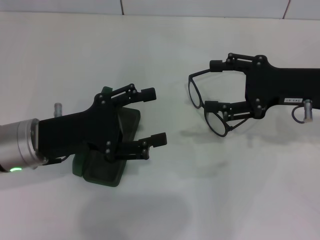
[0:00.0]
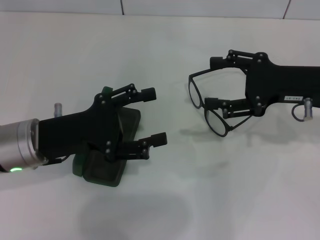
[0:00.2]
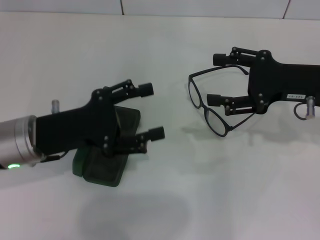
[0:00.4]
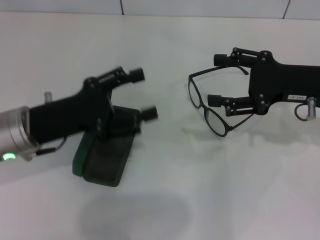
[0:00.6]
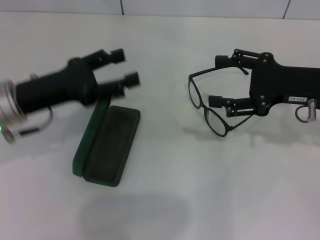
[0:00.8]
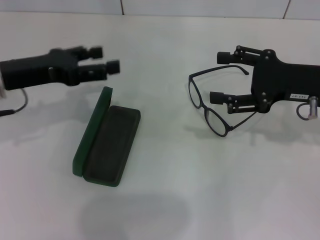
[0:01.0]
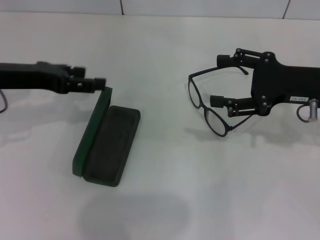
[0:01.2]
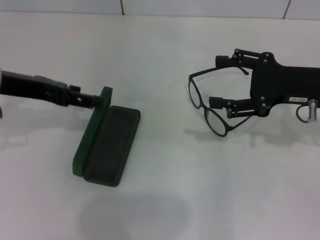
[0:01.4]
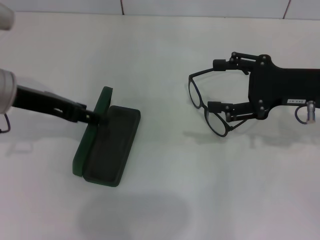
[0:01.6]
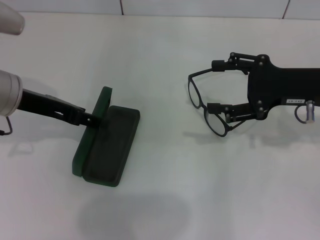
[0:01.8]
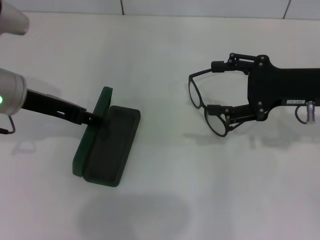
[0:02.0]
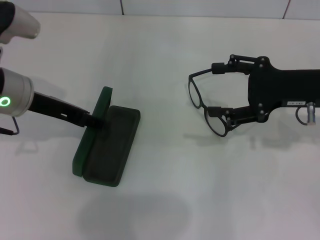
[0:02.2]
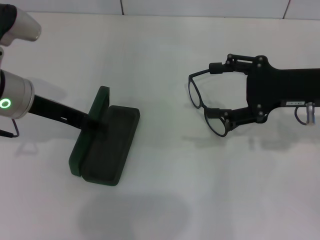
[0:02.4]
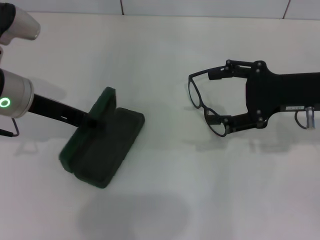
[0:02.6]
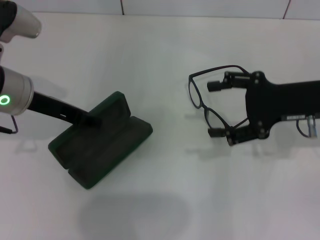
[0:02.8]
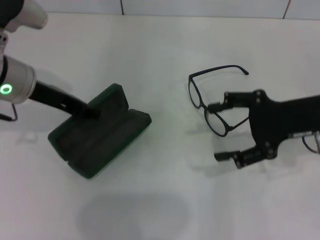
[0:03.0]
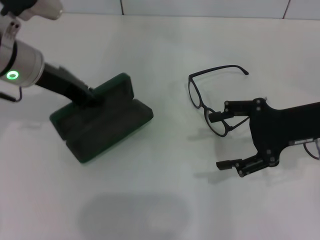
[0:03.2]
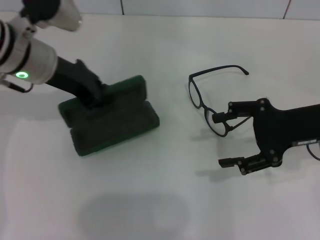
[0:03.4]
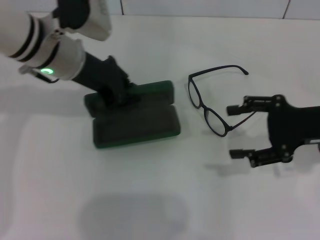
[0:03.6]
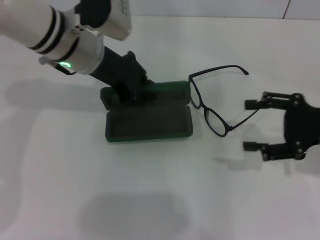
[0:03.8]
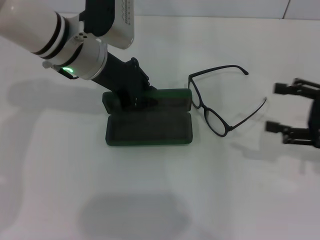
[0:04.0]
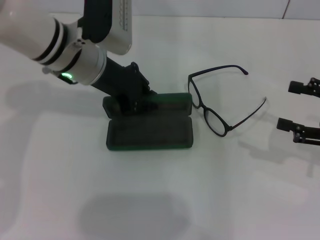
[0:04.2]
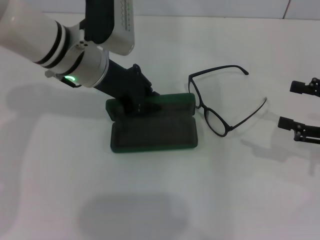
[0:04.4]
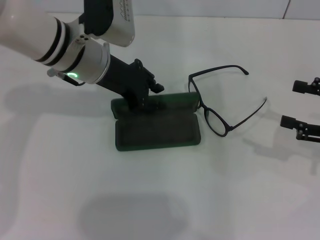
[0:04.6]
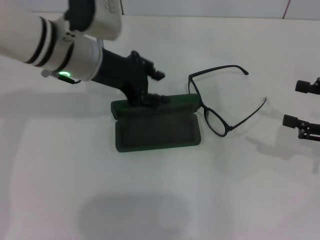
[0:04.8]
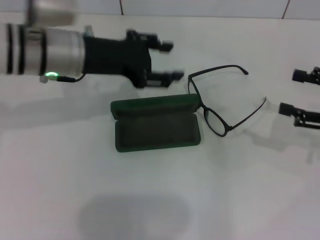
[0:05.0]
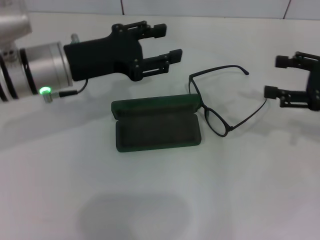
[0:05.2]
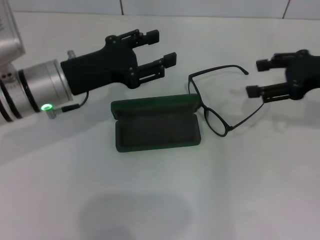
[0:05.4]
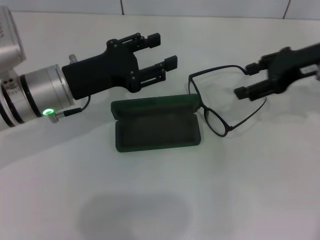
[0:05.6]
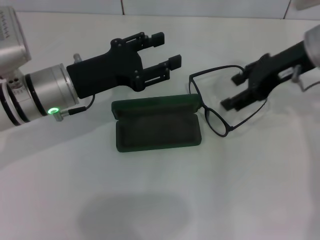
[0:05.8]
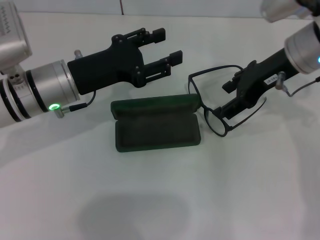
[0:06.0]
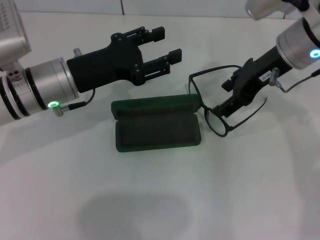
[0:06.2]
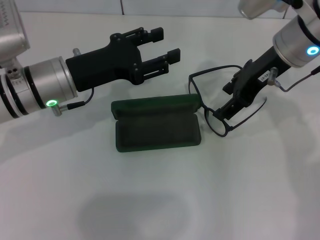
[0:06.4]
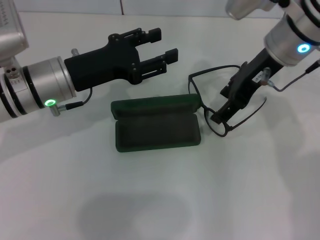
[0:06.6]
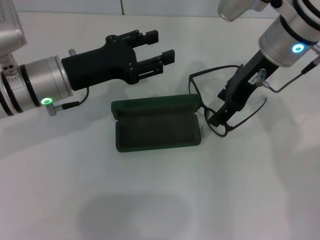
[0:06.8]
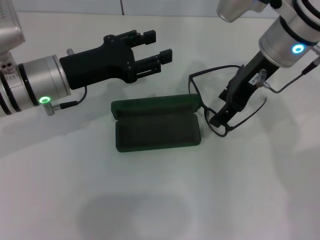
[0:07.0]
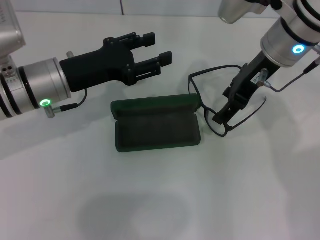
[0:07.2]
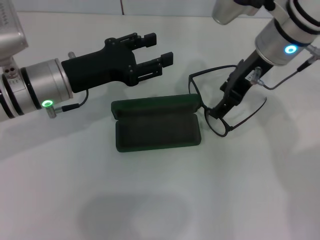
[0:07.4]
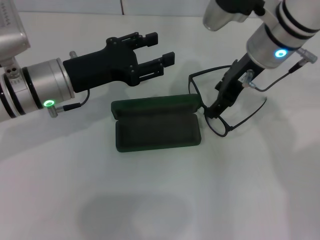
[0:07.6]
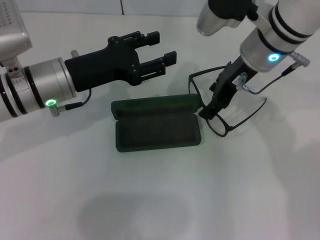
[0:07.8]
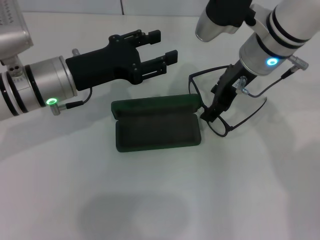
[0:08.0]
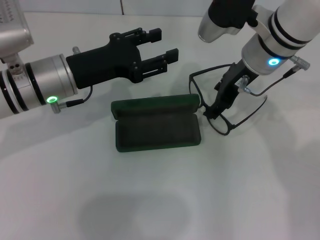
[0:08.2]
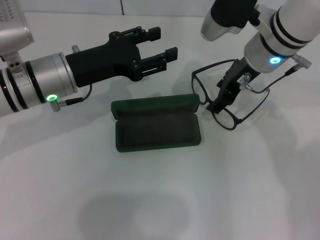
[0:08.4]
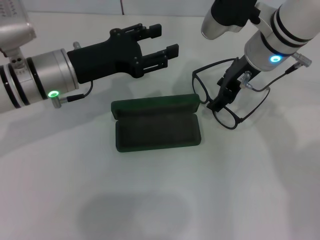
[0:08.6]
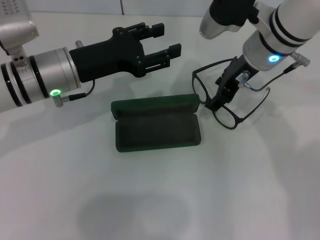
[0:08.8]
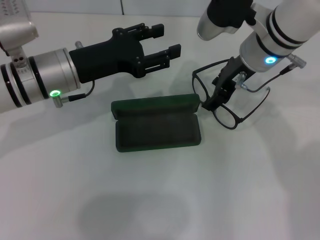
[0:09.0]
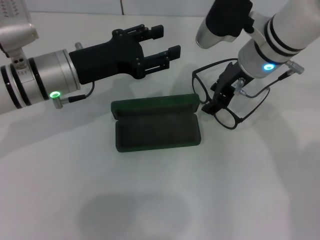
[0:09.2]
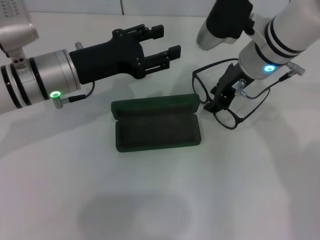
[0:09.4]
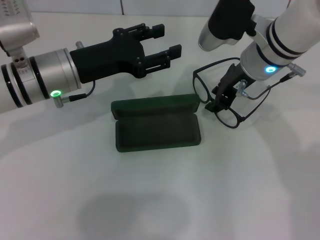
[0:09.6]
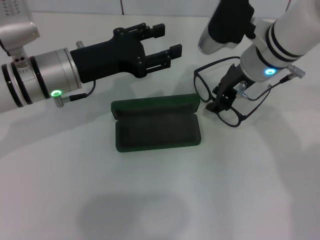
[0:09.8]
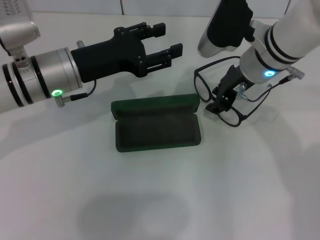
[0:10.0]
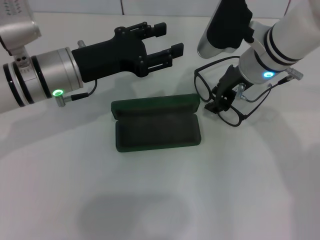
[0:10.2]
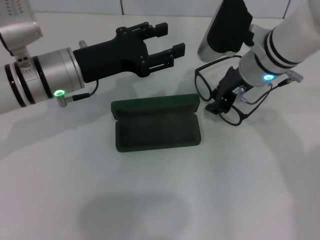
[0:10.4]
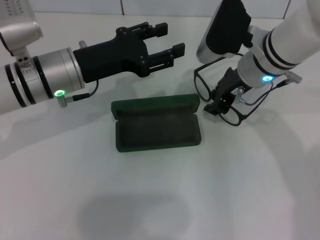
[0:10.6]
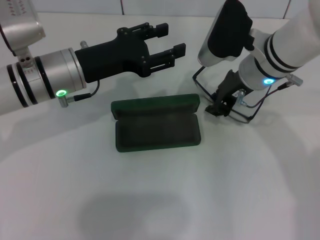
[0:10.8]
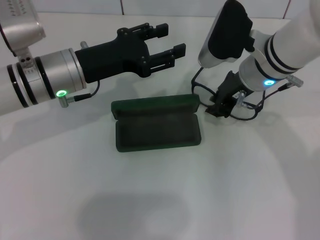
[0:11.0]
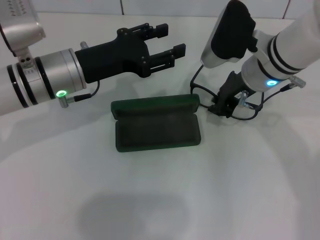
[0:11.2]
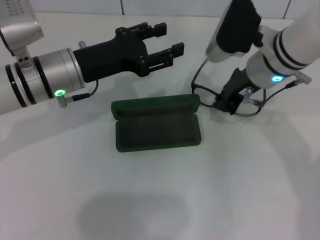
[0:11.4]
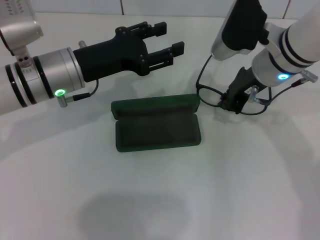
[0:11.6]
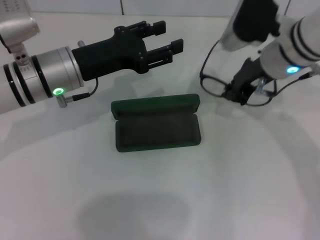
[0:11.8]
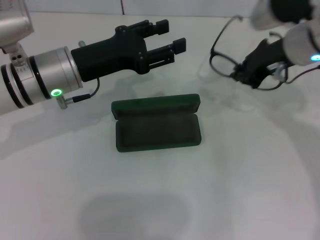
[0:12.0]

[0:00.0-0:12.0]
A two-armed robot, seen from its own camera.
Step, 0:00.0 to 0:02.6: Grab the glasses case with your left hand.
Step, 0:03.0 to 0:04.4: Place the glasses case in the center of the table with your left hand.
Step, 0:04.6 to 0:11.4: Grab the eyeglass frame with your right hand.
0:00.0 to 0:01.6: The left gripper moves upward and forward, roughly 10 cm.
0:01.6 to 0:03.0: The left gripper closes.
0:03.0 to 0:04.4: Both grippers move to the right, about 10 cm.
0:04.4 to 0:06.0: The right gripper shifts about 20 cm to the left, forward and upward. Meanwhile the left gripper moves backward, about 5 cm, and opens its fingers.
0:06.0 to 0:07.6: The right gripper travels to the left by approximately 5 cm.
0:07.6 to 0:09.0: There are only small adjustments of the grippers.
0:09.0 to 0:10.4: The right gripper closes its fingers.
0:10.4 to 0:12.0: The right gripper goes approximately 5 cm to the right, and closes up.

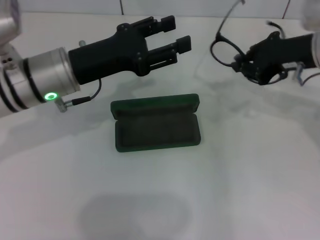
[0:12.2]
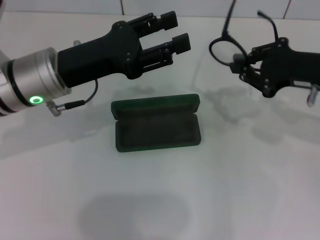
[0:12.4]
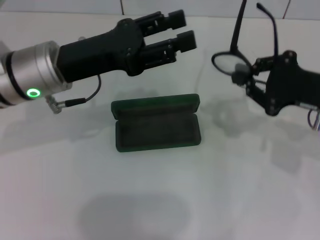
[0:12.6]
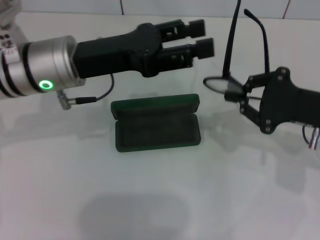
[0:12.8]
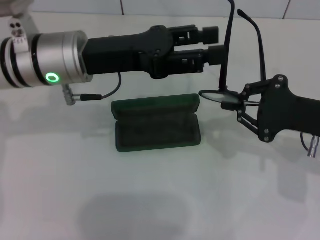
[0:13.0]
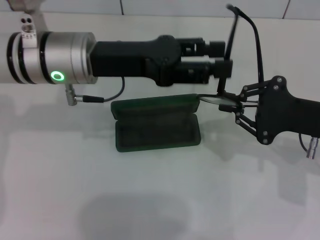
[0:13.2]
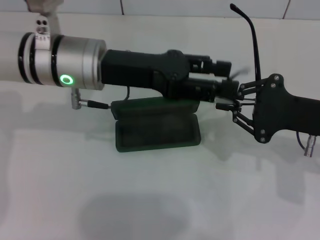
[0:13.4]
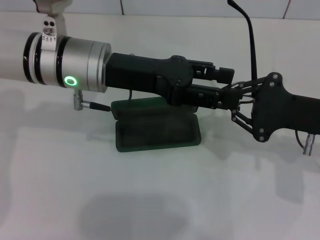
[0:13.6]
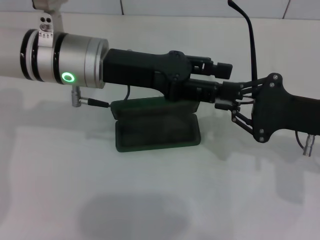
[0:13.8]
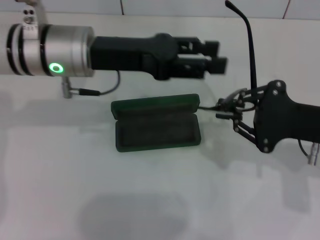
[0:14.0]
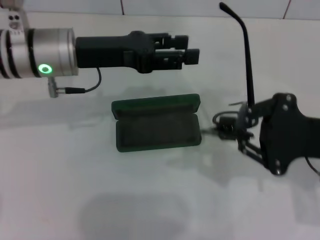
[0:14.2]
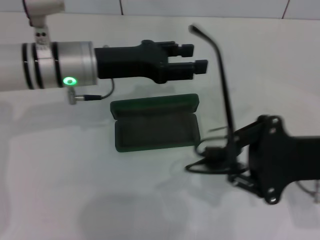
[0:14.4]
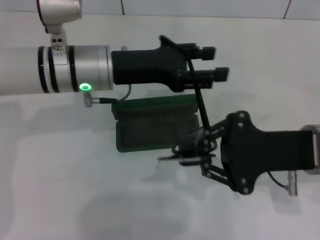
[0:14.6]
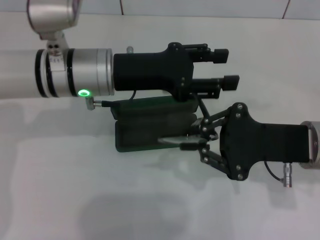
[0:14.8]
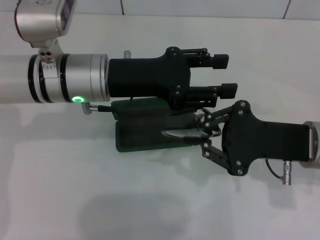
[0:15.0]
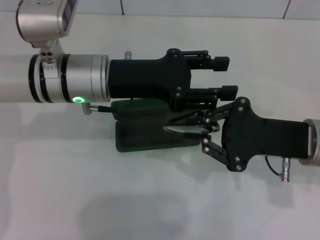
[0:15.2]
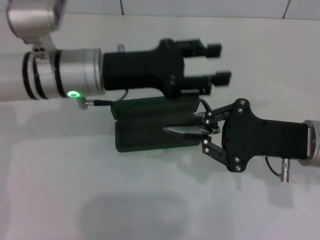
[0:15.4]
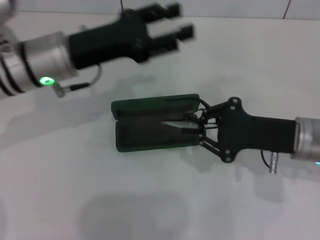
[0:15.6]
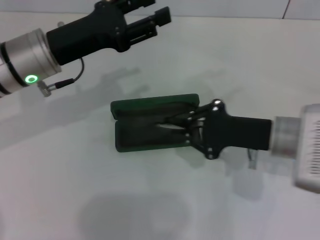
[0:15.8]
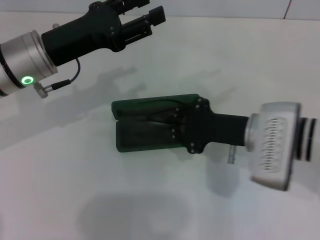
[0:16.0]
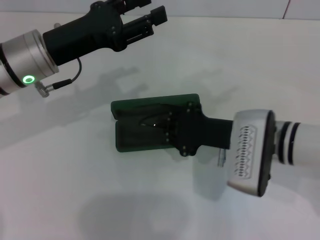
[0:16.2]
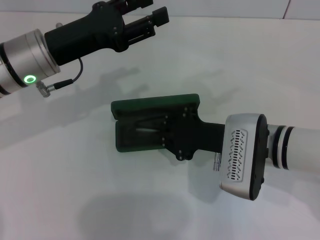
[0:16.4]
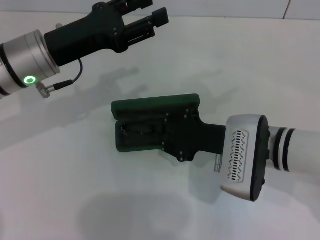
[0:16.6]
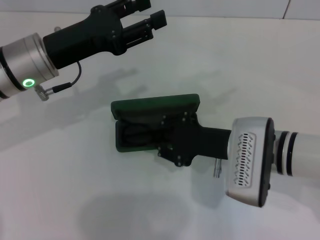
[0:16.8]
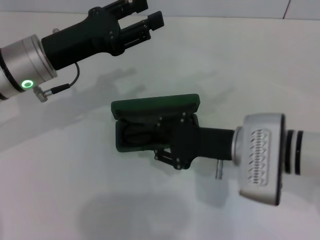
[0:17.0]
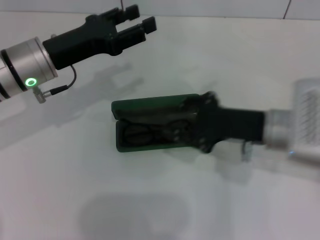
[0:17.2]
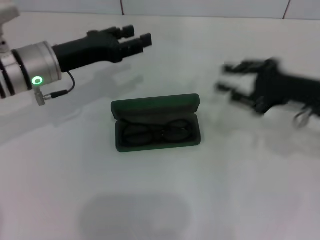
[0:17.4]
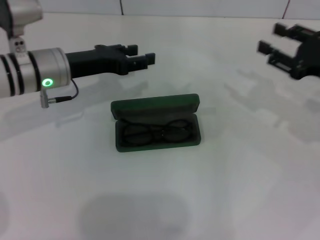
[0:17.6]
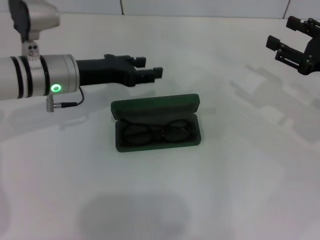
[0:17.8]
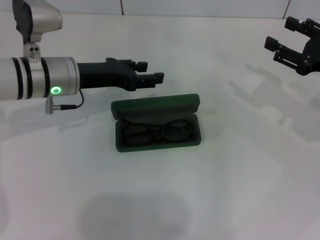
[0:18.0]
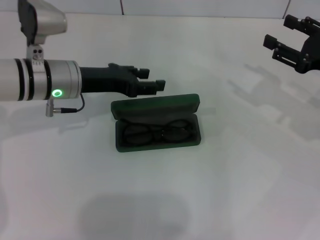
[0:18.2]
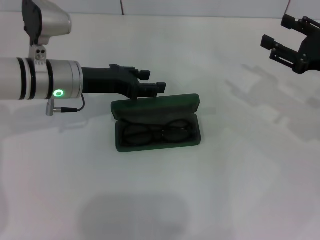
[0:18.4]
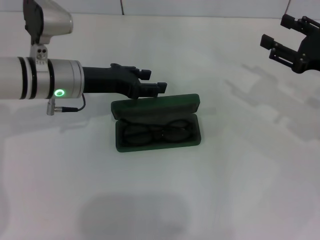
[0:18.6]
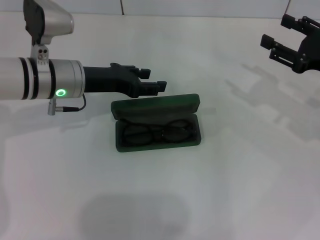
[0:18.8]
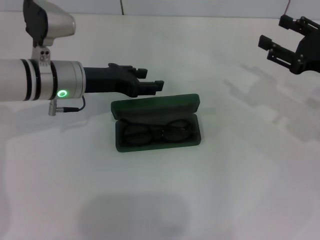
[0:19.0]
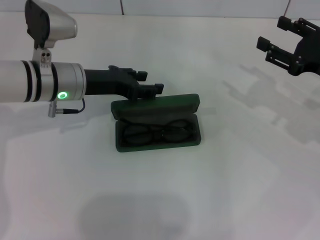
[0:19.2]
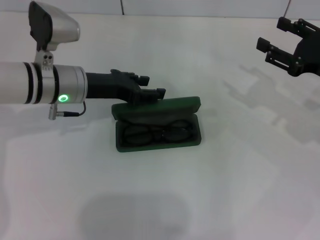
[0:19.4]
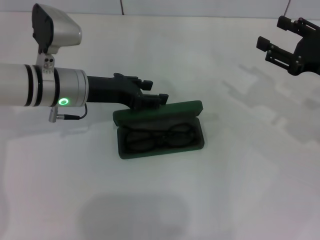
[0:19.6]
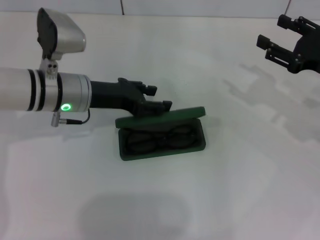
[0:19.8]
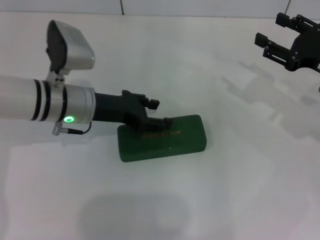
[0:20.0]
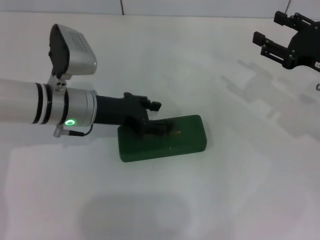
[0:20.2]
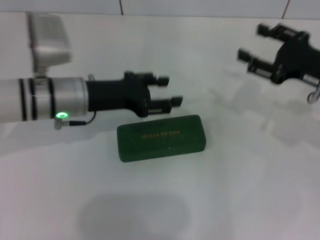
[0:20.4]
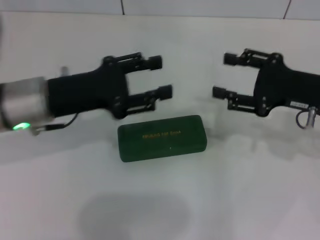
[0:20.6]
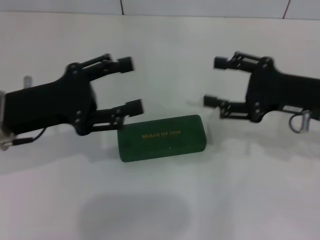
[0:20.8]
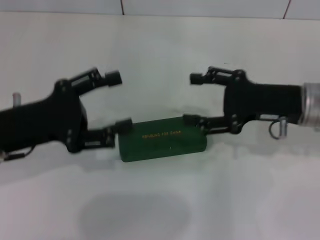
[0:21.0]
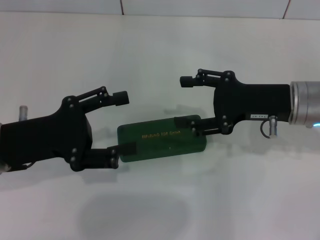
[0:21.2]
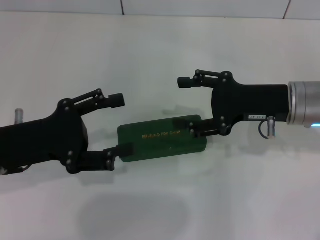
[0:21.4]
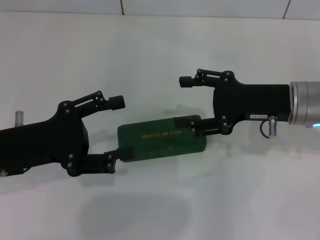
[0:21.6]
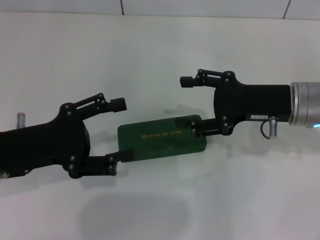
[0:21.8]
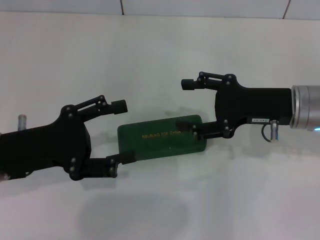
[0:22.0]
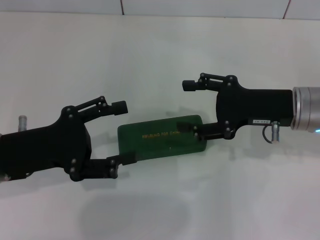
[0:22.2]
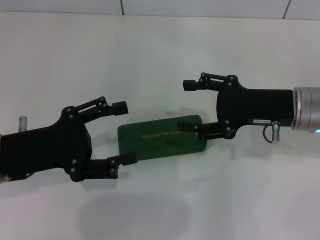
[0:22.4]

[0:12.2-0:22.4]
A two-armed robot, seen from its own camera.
Step, 0:12.2 to 0:15.2: Fold the frame with your left hand.
Step, 0:15.4 to 0:16.8: Put the glasses into the case with your right hand.
Step, 0:17.2 to 0:19.8: Close the glasses case with your left hand.
0:12.2 to 0:13.6: The left gripper ends up approximately 5 cm from where it was. The right gripper goes some 10 cm backward and downward.
0:15.2 to 0:16.6: The grippers both shift to the left by some 5 cm.
0:16.6 to 0:18.0: The left gripper moves approximately 5 cm; the right gripper heads to the right, covering some 20 cm, and opens its fingers.
0:18.0 to 0:19.4: There are only small adjustments of the grippers.
0:19.4 to 0:21.0: The right gripper heads to the left, covering some 10 cm, while the left gripper travels backward and to the left by some 15 cm.
0:21.0 to 0:22.4: The grippers make only small movements.
